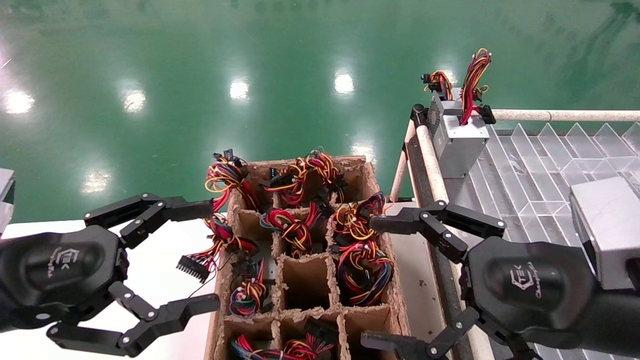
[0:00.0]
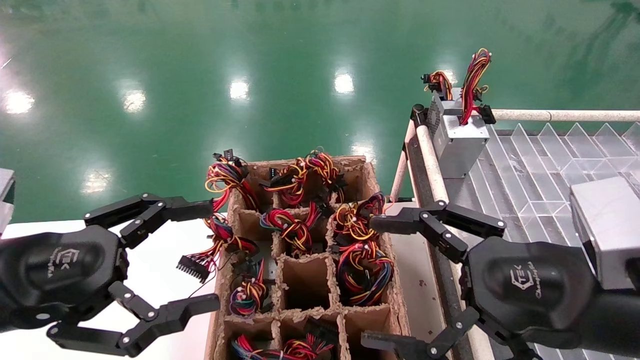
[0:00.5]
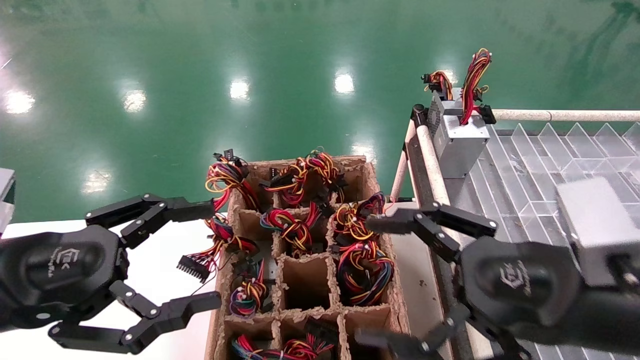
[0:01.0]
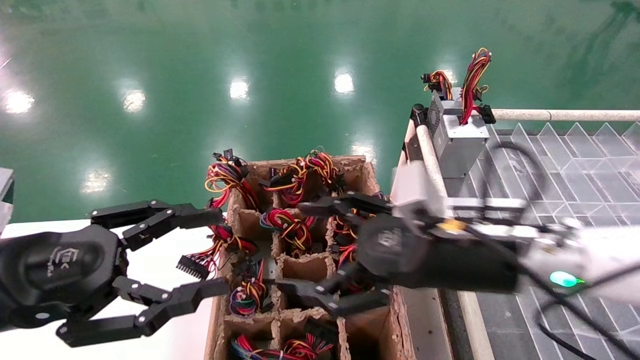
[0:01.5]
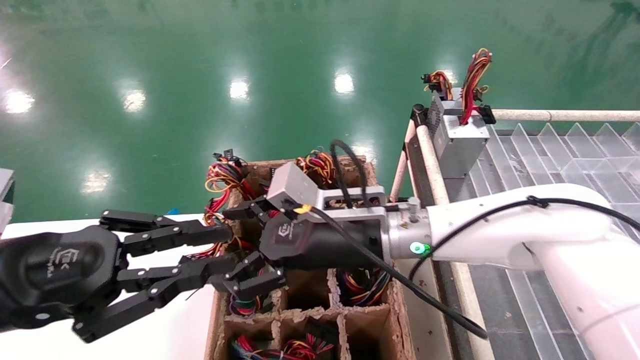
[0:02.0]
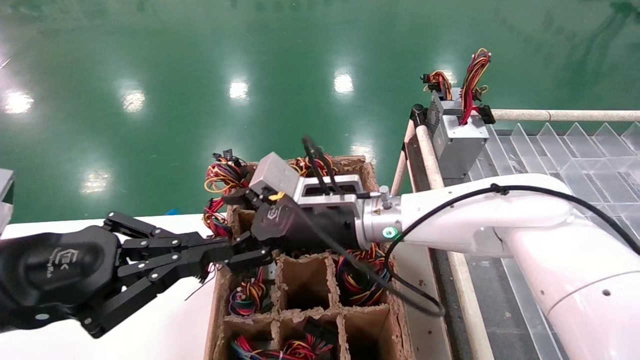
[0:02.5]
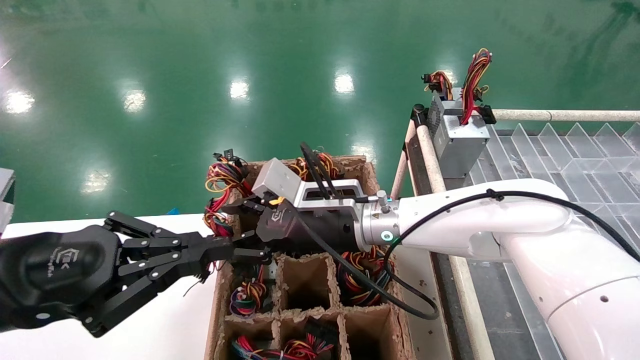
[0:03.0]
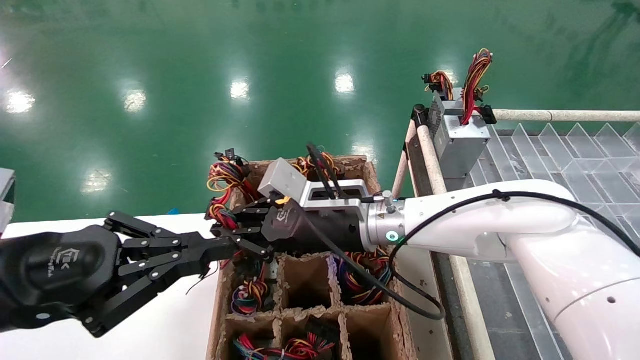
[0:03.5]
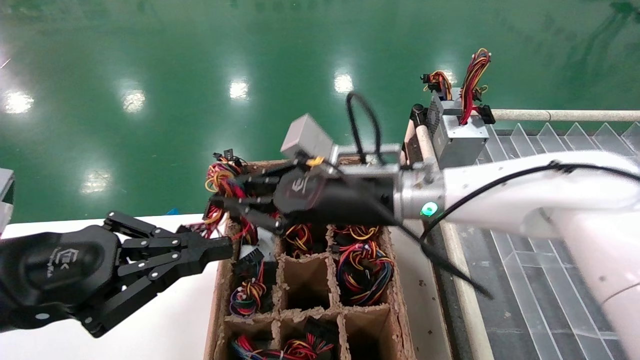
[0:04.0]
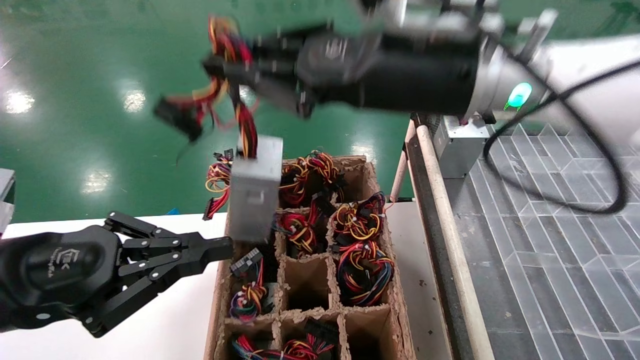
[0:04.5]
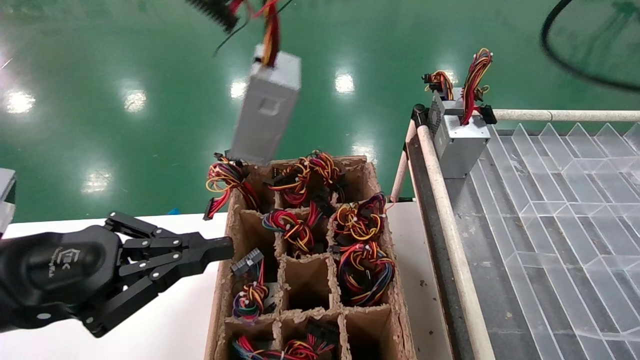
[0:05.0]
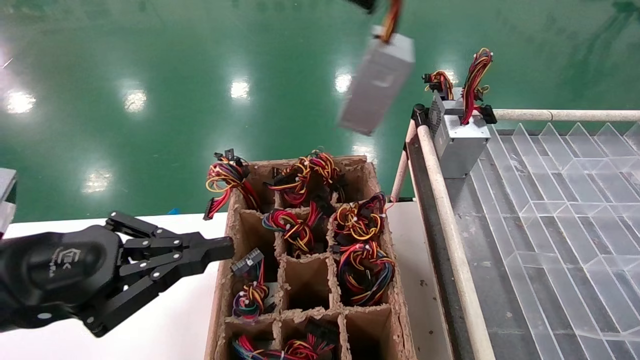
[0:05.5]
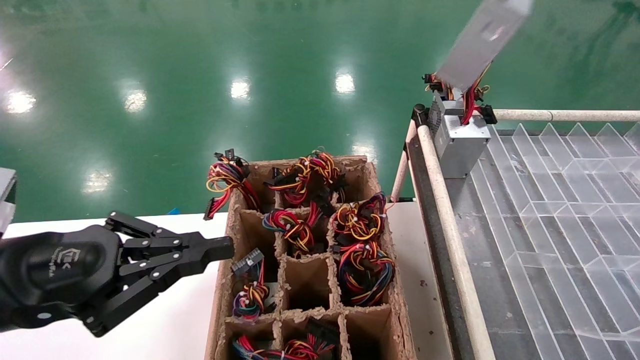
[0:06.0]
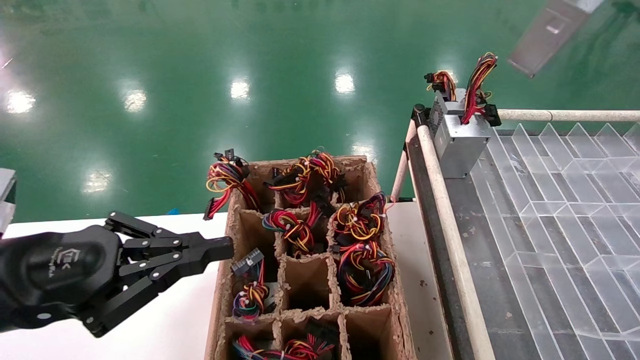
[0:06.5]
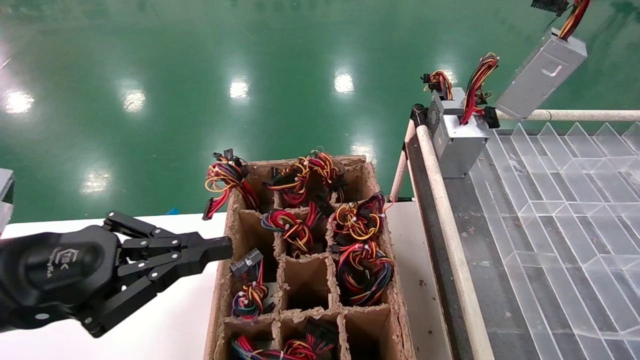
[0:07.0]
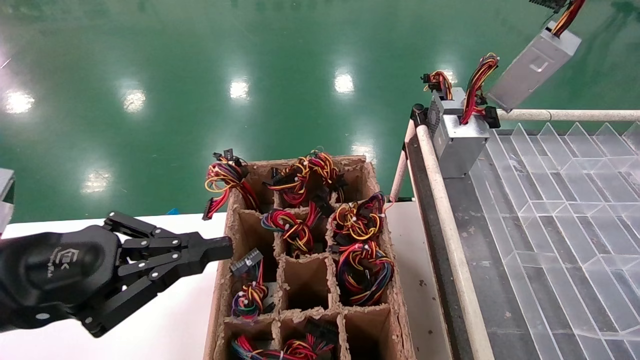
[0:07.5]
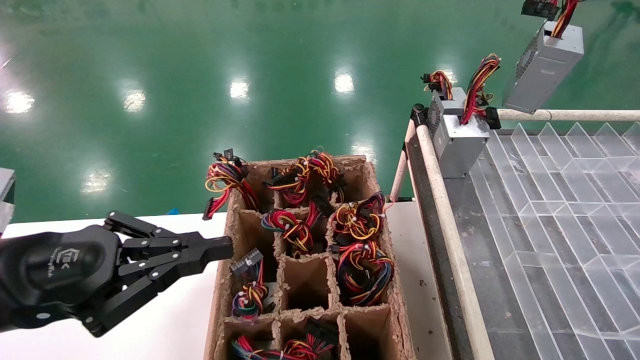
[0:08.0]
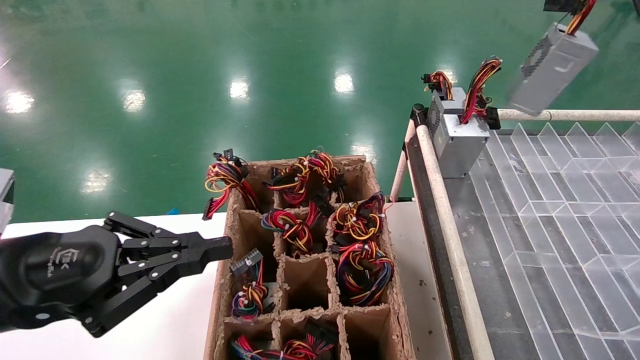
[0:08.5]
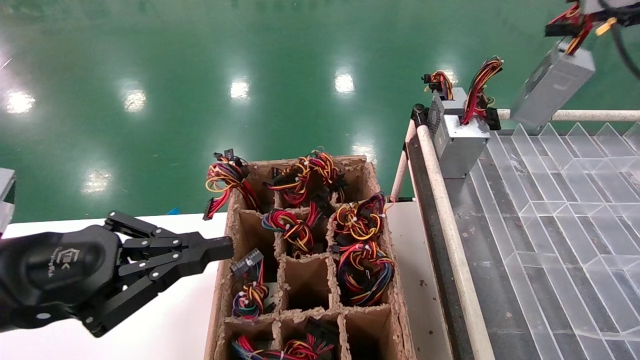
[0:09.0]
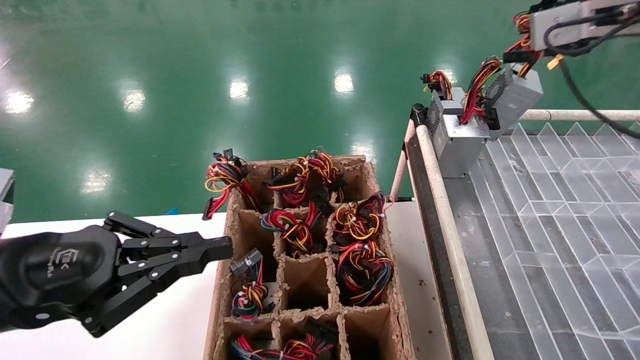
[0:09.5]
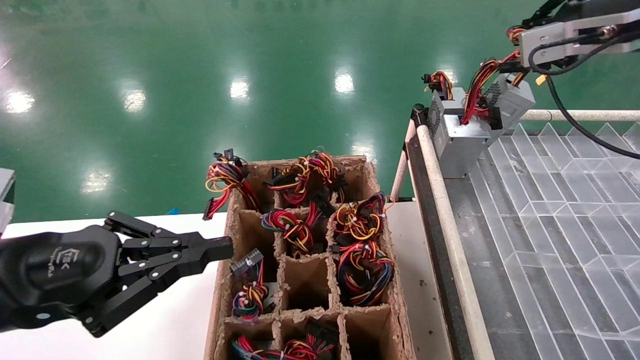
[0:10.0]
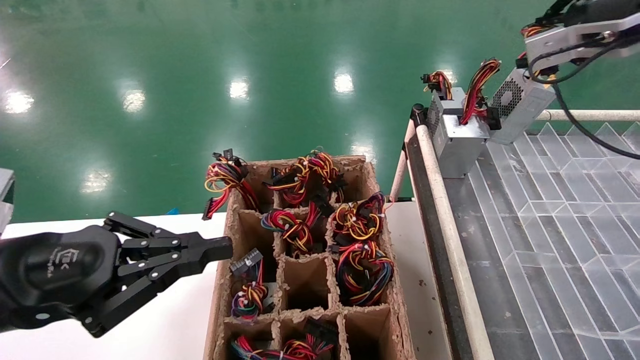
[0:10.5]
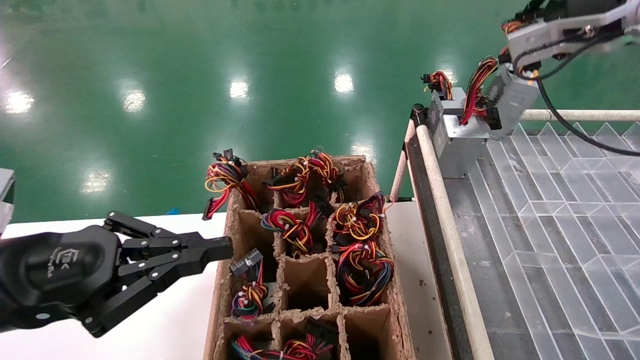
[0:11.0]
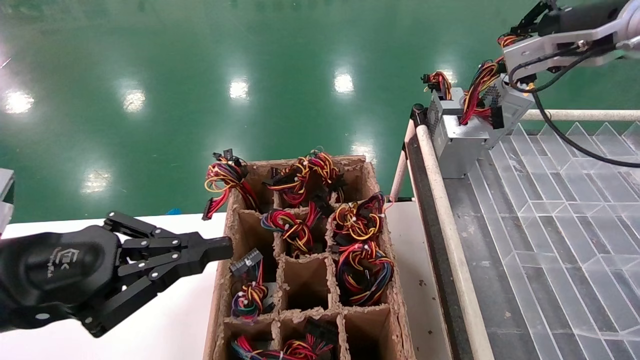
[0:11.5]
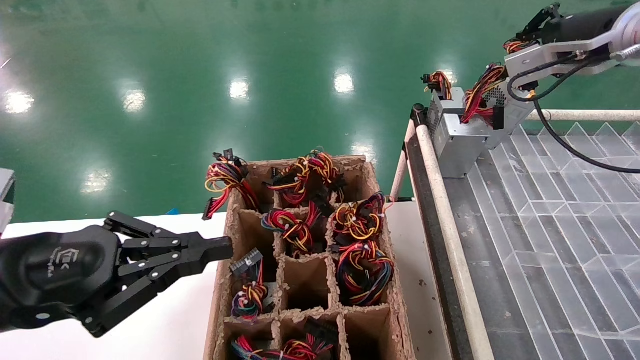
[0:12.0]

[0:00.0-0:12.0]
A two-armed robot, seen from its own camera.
Step, 0:01.5 to 0:03.5: Grab the main unit power supply from the containment box.
0:00.0 to 0:02.0: The right gripper goes approximately 25 cm to the left and forward; the left gripper closes its fingers.
0:02.0 to 0:04.0: The right gripper travels upward by approximately 5 cm, and closes up.
0:04.0 to 0:06.0: The right gripper travels upward and to the right by some 40 cm.
0:06.0 to 0:08.0: The right gripper goes approximately 5 cm to the right.
0:08.0 to 0:10.0: The right gripper is displaced forward and downward by roughly 10 cm.
0:10.0 to 0:12.0: The grippers move only a little.

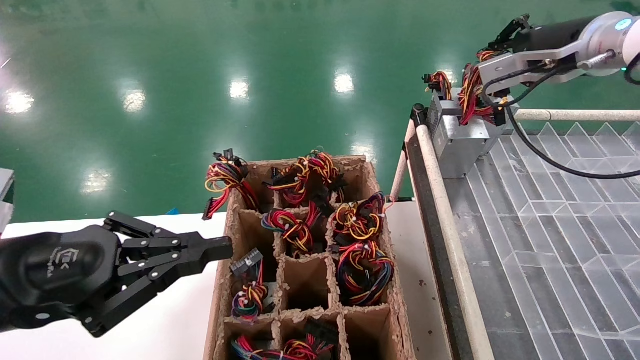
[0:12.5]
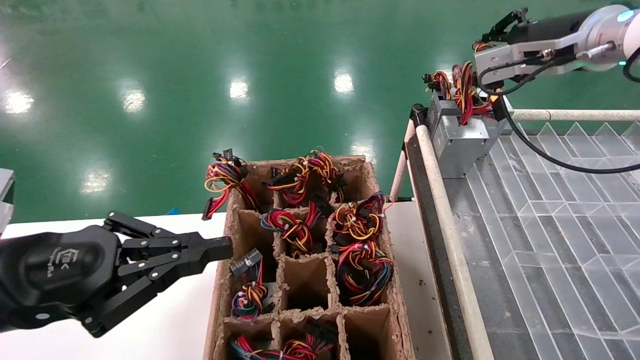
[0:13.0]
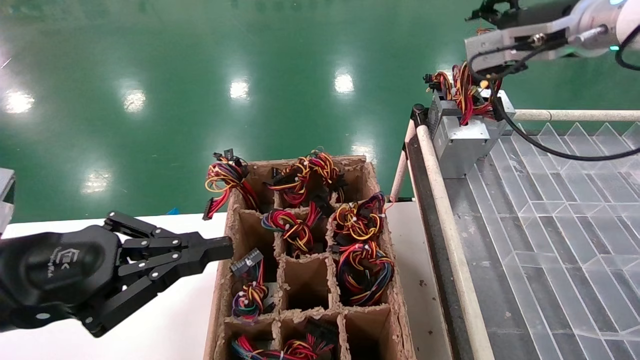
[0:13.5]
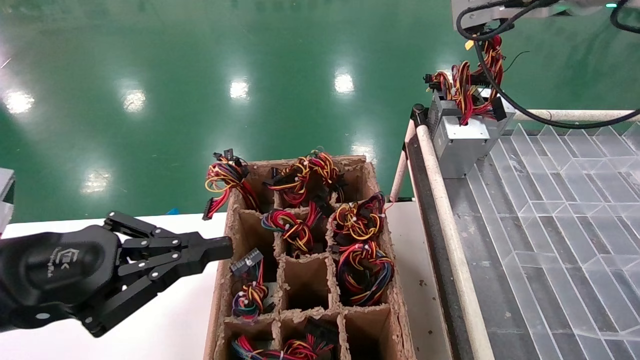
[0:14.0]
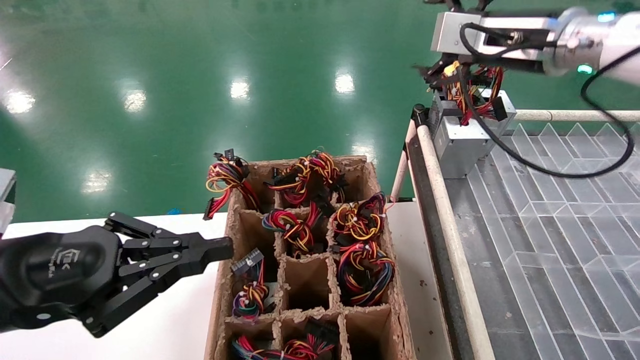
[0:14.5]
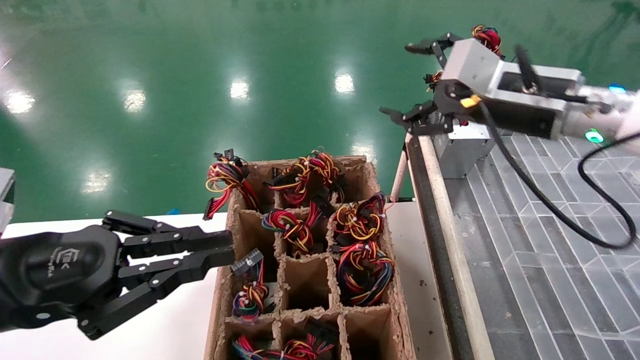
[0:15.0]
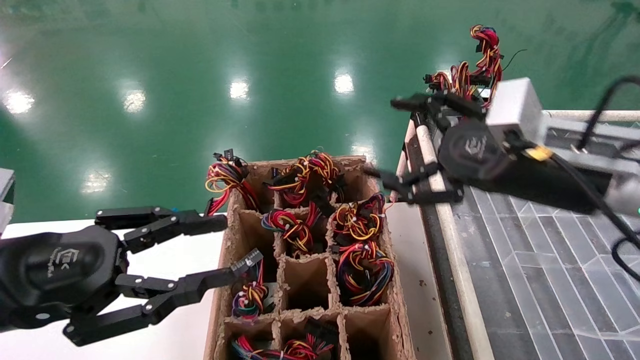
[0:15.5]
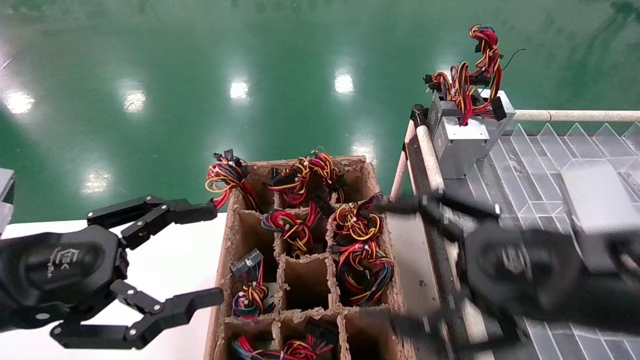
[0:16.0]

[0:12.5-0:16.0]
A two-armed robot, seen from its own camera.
0:12.5 to 0:14.5: The right gripper shifts about 5 cm to the left, and opens up.
0:14.5 to 0:16.0: The left gripper opens its fingers; the right gripper is displaced backward and downward by some 25 cm.
